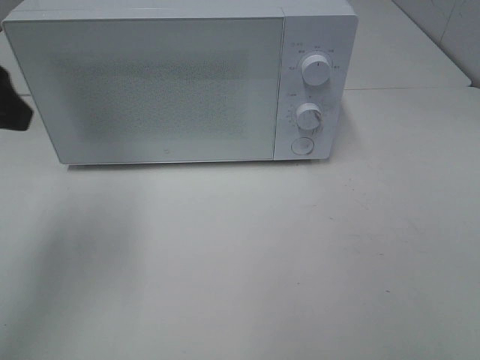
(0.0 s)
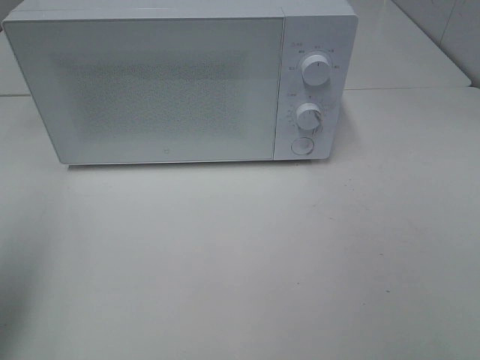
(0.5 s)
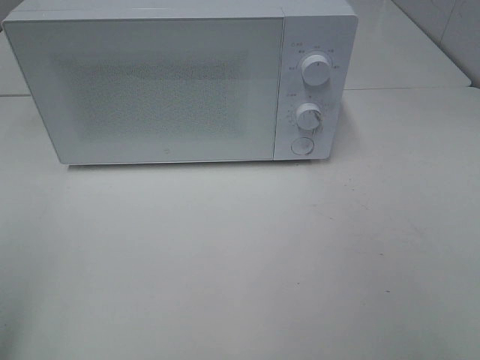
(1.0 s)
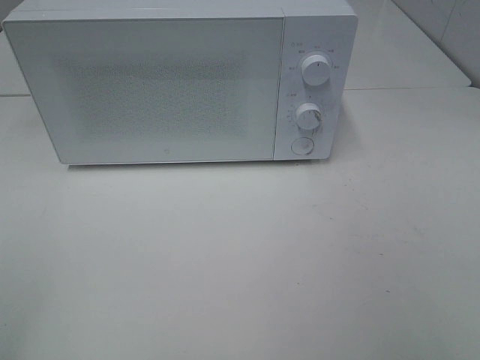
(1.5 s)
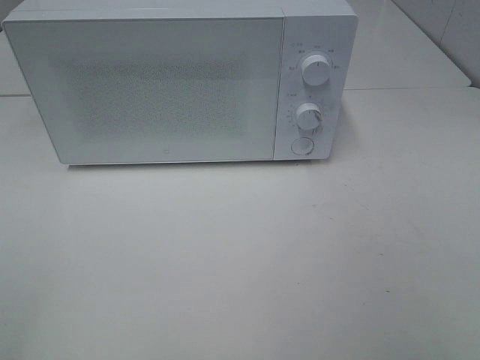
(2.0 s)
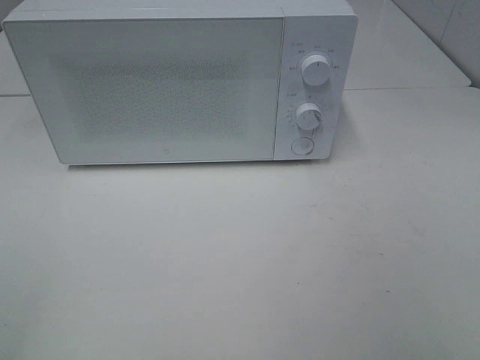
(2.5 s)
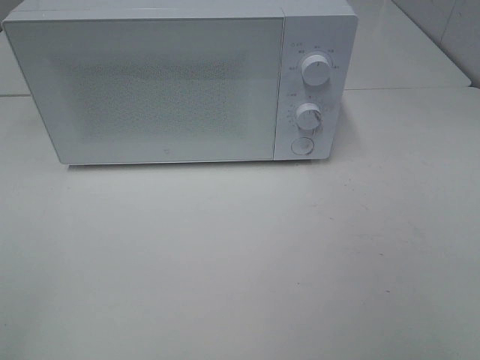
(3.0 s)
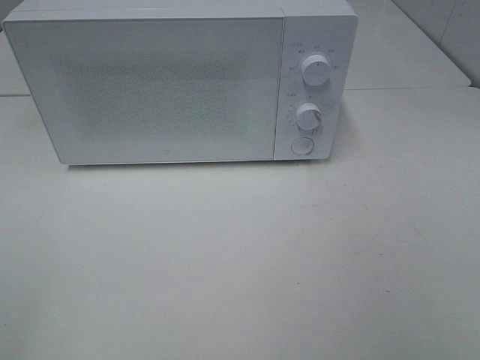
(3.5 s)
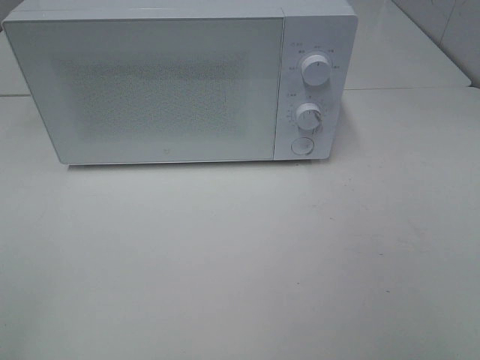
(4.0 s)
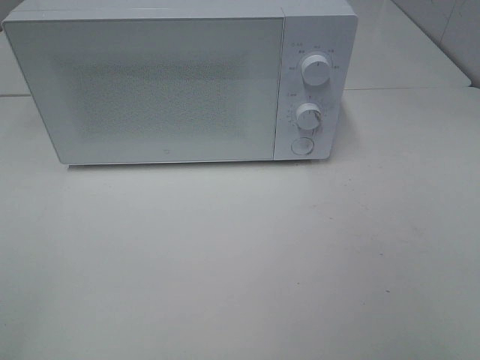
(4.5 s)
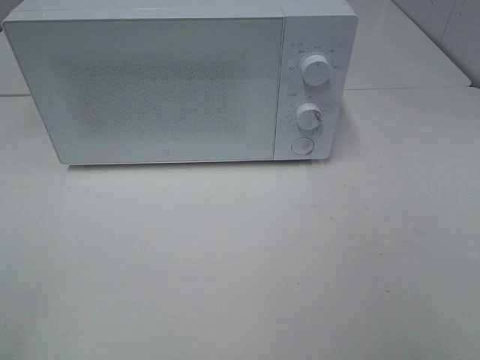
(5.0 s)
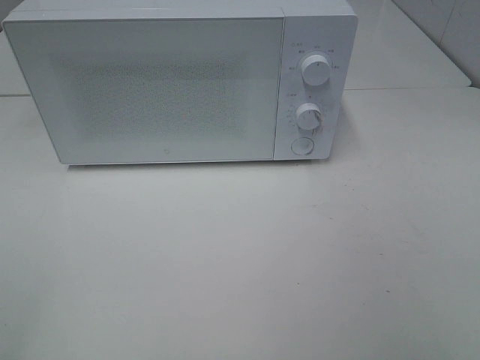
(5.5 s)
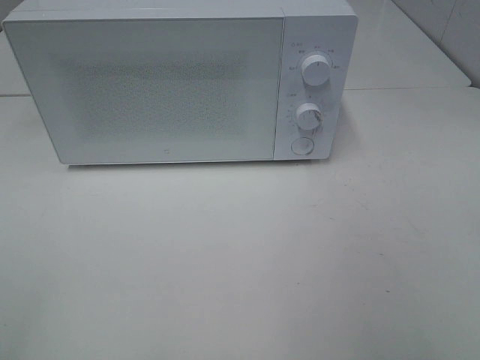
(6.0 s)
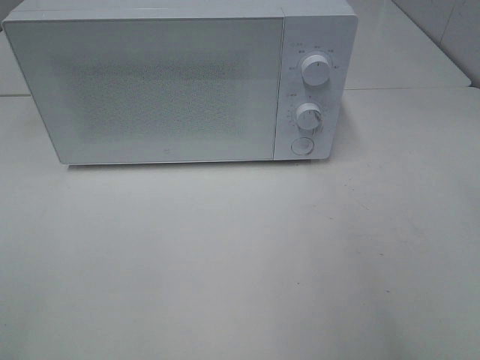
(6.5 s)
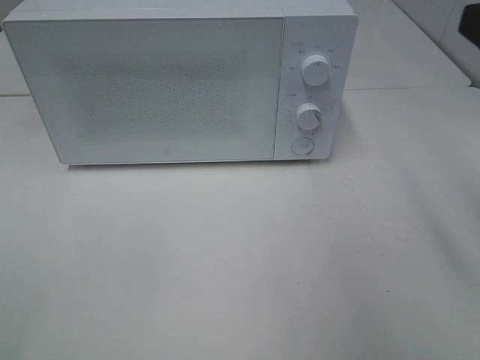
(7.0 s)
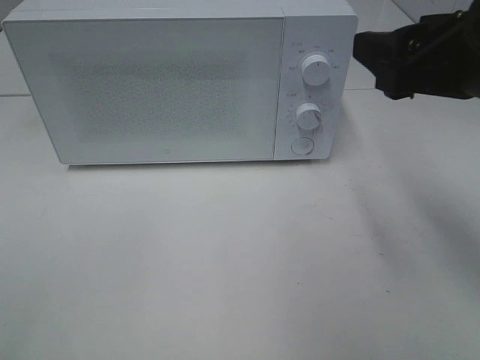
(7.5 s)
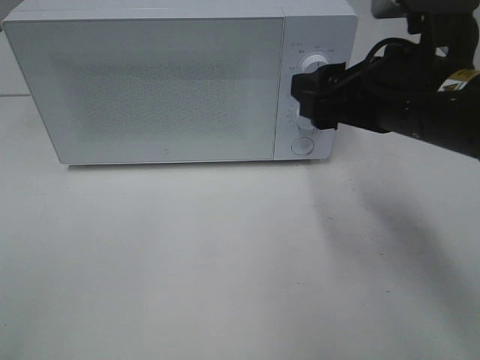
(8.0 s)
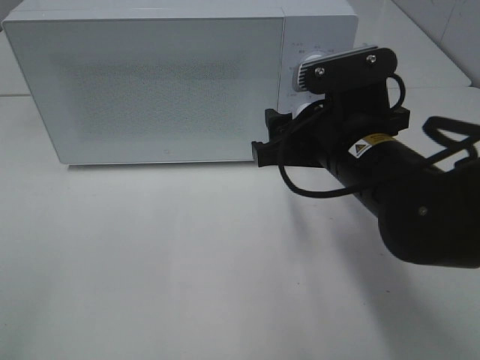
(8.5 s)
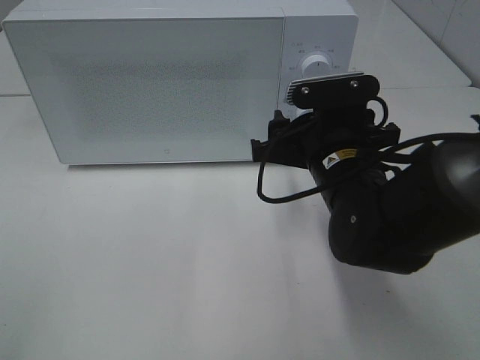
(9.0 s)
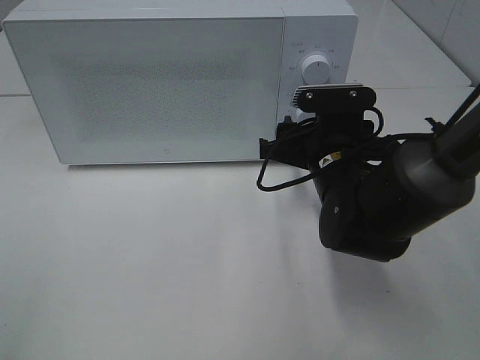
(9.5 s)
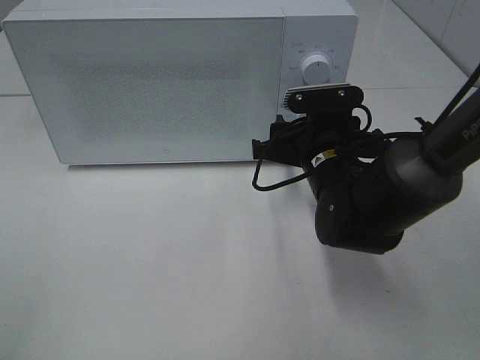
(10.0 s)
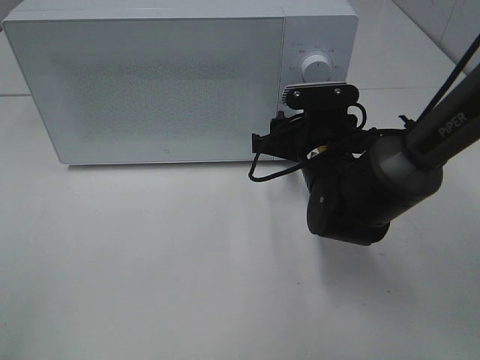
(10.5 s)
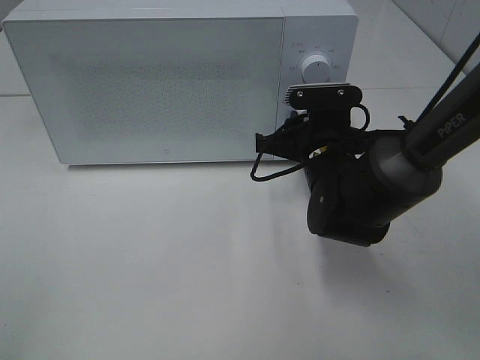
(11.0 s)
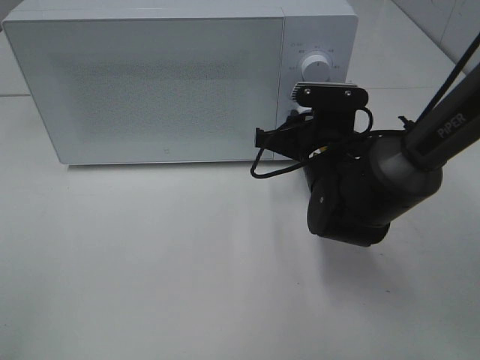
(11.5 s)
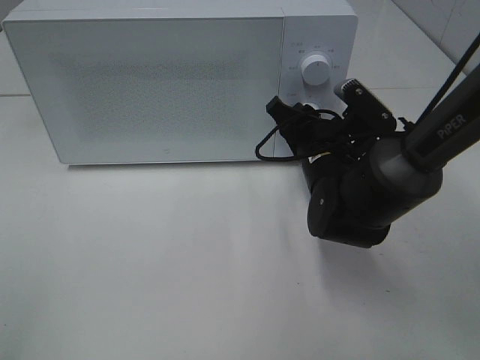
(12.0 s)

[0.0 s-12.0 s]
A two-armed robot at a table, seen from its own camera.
Task of the whole recording: Heat Sandwich.
0.0 to 2.0 s: The left gripper travels backward by approximately 20 cm.
2.0 to 4.0 s: Both grippers stay about where they are.
6.0 to 8.0 s: The right gripper goes approximately 25 cm forward and to the left.
8.0 to 10.0 s: The right gripper heads downward and forward, covering some 15 cm.

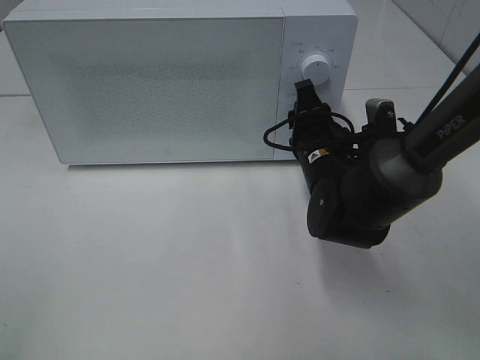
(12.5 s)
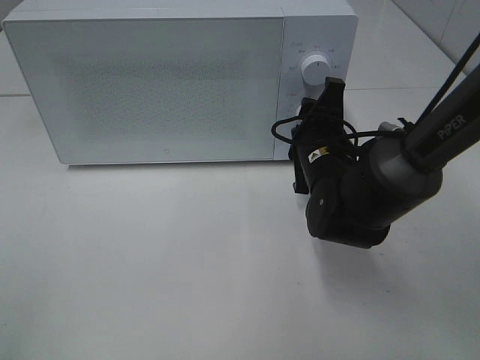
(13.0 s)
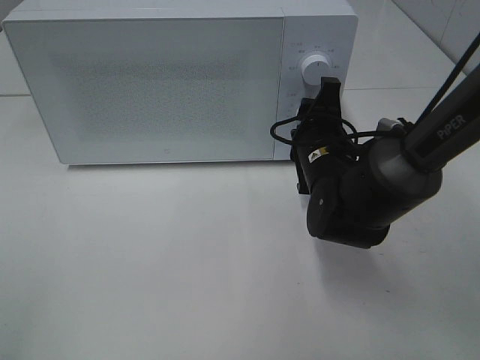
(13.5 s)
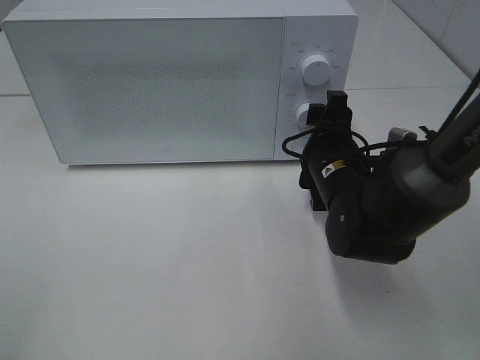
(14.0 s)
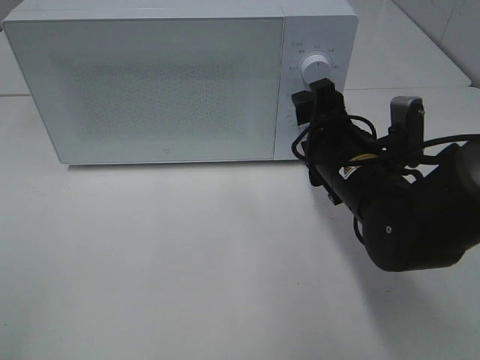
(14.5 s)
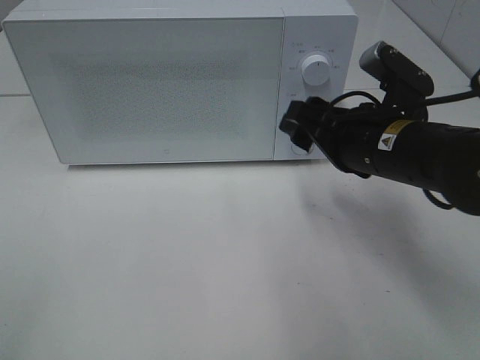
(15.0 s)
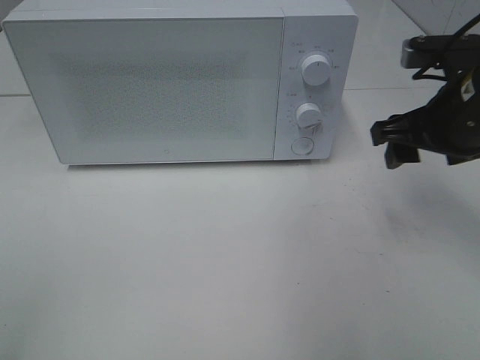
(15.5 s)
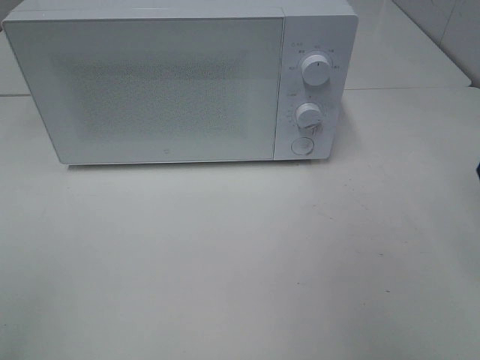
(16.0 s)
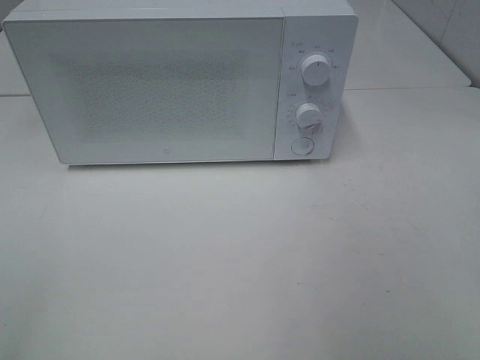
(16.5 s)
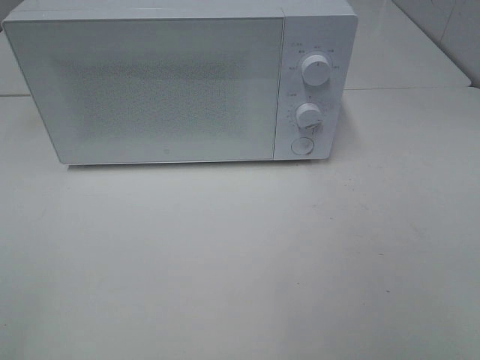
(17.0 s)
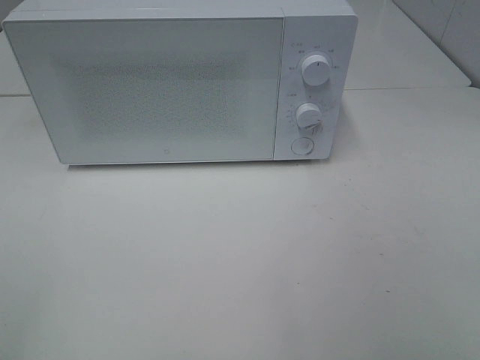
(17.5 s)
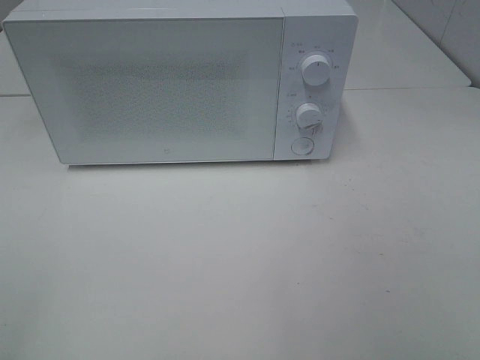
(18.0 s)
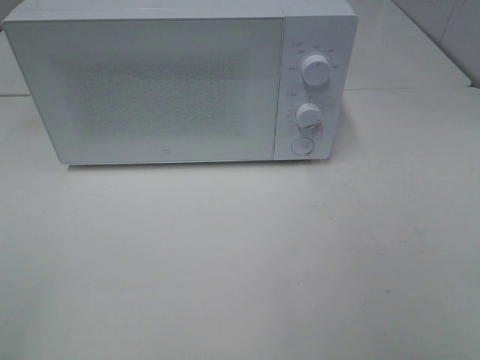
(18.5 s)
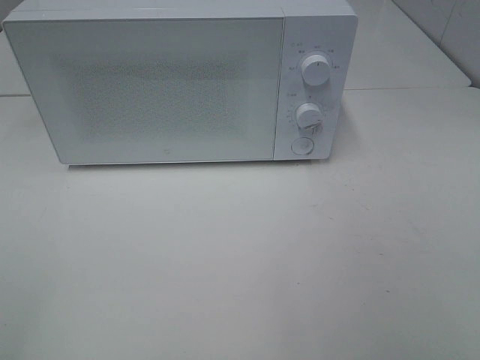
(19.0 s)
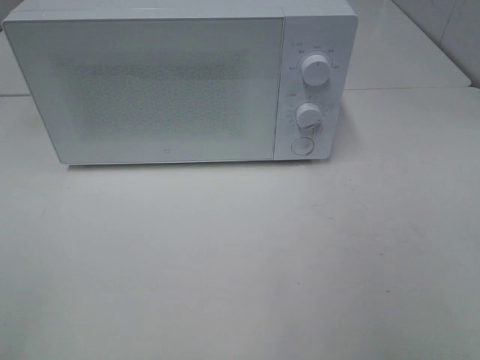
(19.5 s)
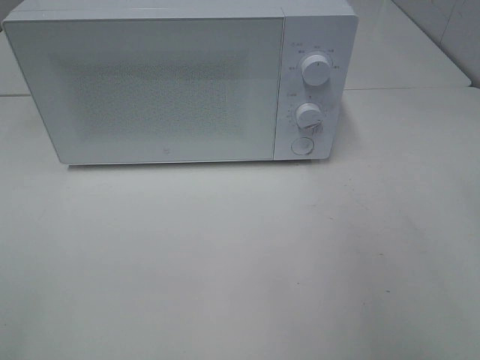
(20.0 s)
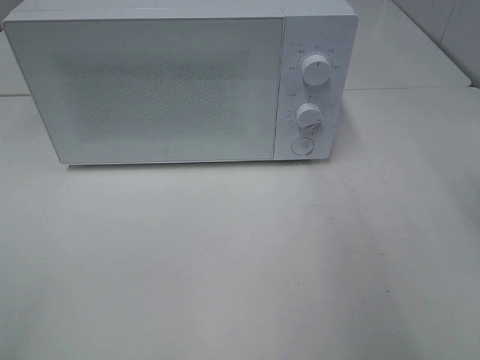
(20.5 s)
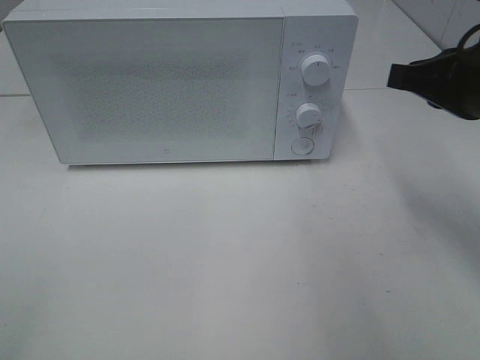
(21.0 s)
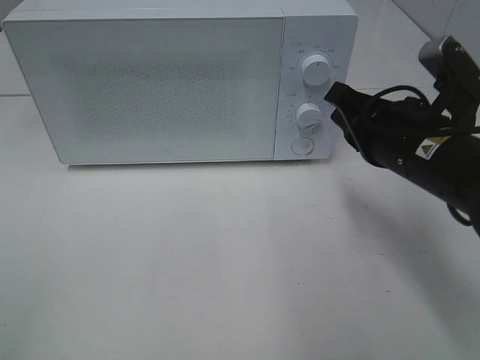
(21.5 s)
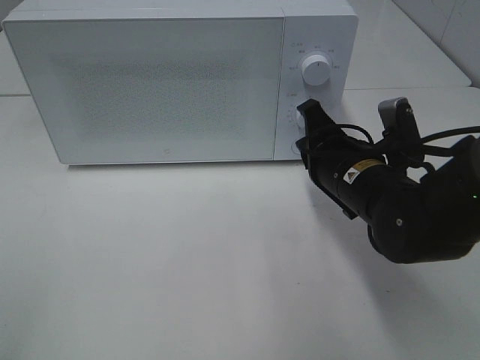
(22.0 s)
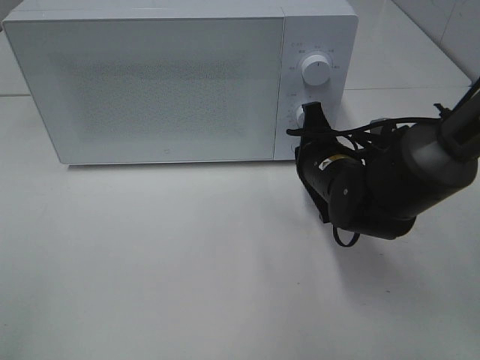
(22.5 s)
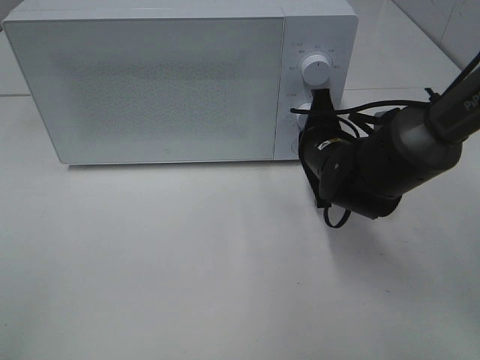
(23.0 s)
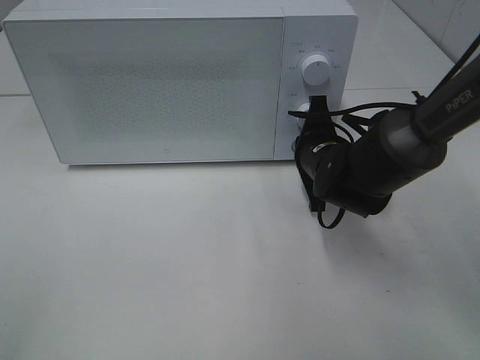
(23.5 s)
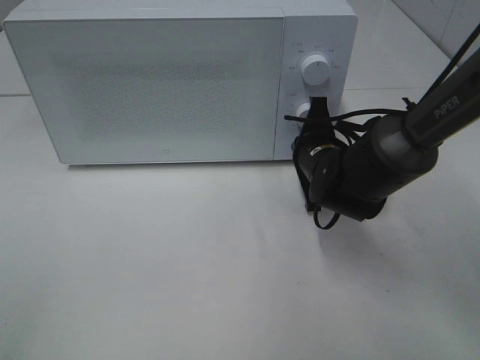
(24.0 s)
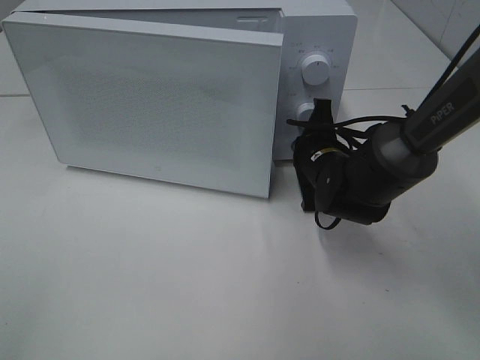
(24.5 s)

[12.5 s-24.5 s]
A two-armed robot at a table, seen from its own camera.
Task of the whole recording: Heat Sandwich.
Step, 12.5 to 14.5 s: Right hand: twist timer button.
12.5 to 14.5 s: The right gripper shifts by roughly 5 cm, and opens up.
14.5 to 16.5 s: The right gripper goes roughly 30 cm upward, backward and to the right.
20.5 to 22.5 s: The right gripper is displaced downward, to the left and forward by about 25 cm, and closes up.
22.5 to 24.5 s: The grippers move only a little.

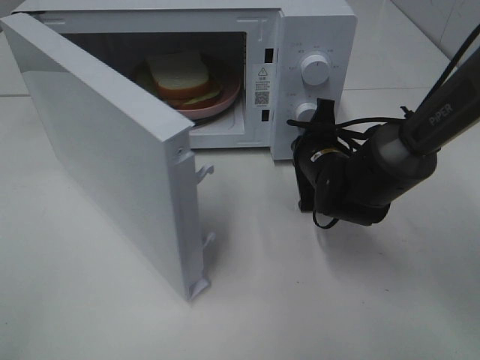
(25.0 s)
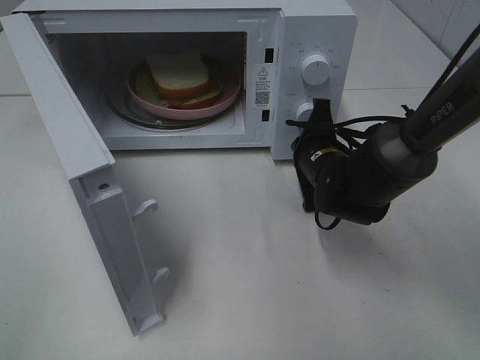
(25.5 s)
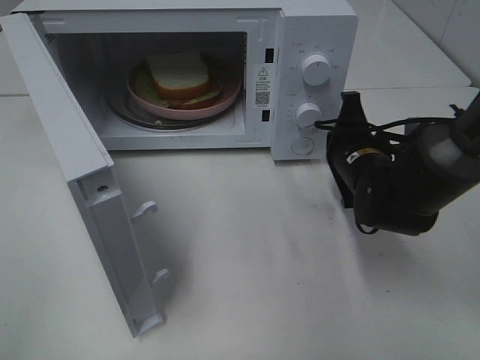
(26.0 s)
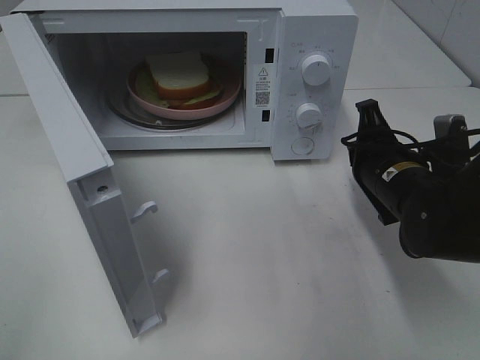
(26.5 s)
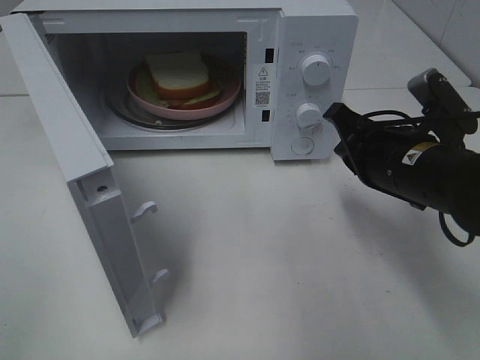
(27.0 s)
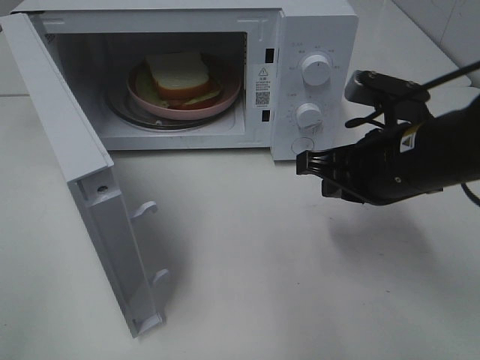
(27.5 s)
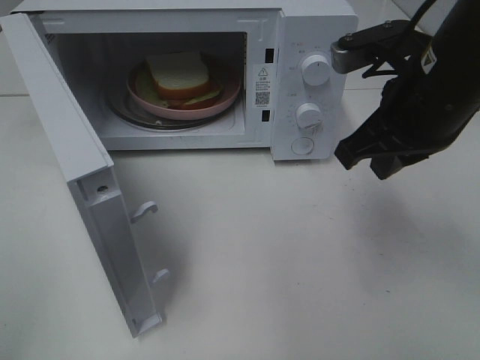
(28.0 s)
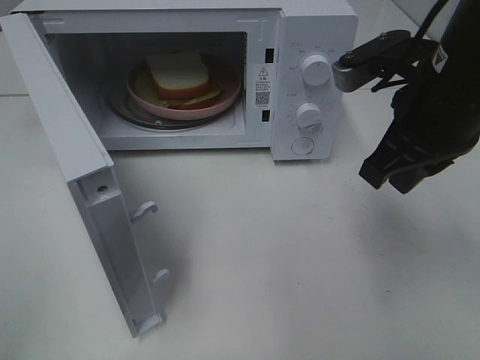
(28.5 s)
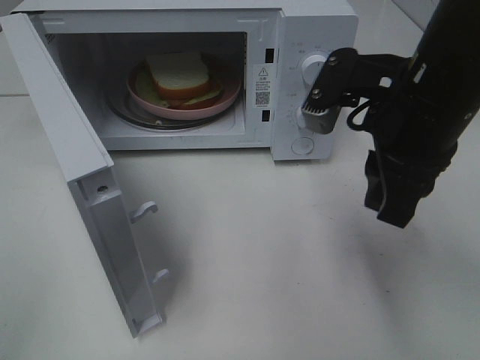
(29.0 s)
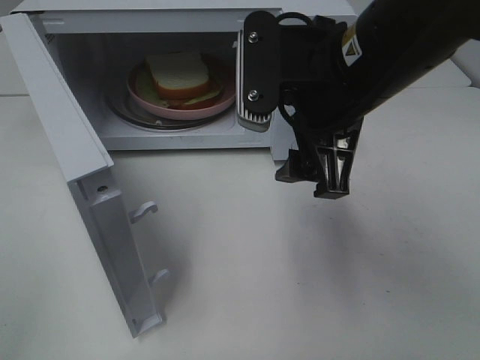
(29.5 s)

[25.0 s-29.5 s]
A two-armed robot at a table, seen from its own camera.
Task of the whole recording: Heat Sandwich.
25.0 to 27.0 s: The right gripper goes approximately 15 cm backward and upward.
27.0 to 29.5 s: The right gripper travels upward and to the left by roughly 15 cm, and opens.
